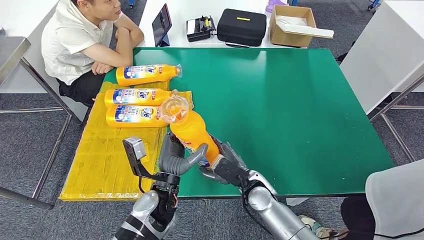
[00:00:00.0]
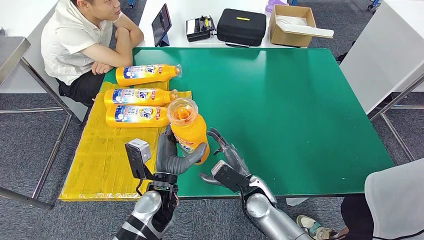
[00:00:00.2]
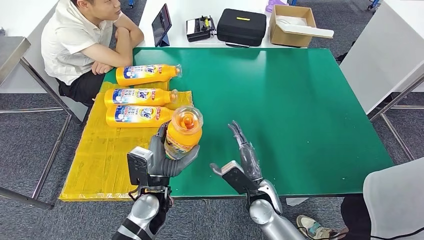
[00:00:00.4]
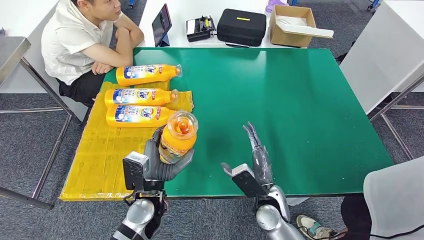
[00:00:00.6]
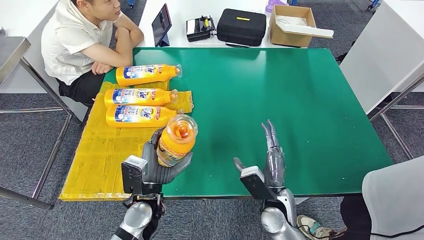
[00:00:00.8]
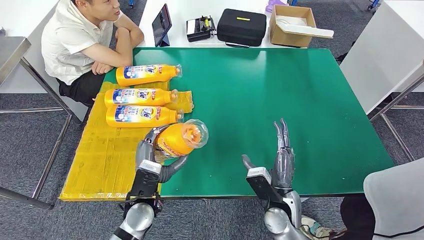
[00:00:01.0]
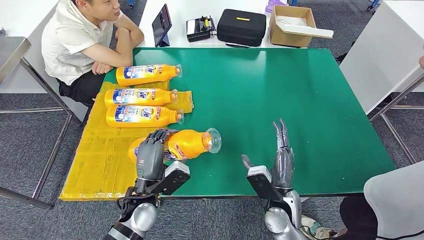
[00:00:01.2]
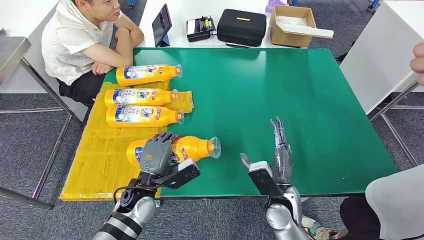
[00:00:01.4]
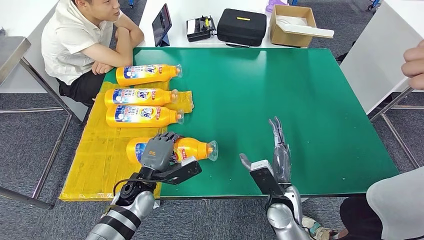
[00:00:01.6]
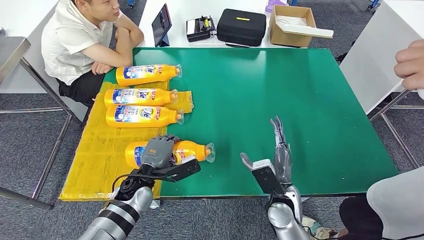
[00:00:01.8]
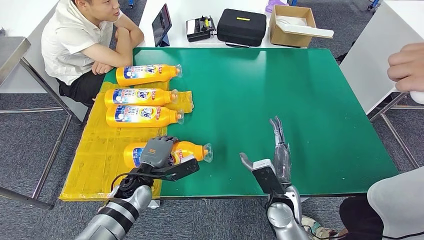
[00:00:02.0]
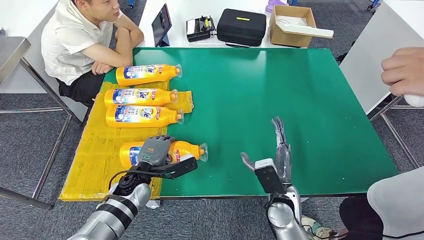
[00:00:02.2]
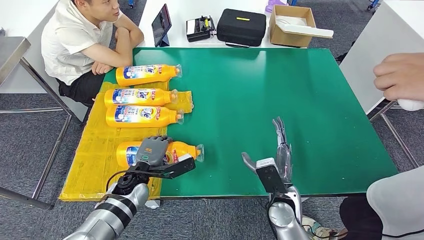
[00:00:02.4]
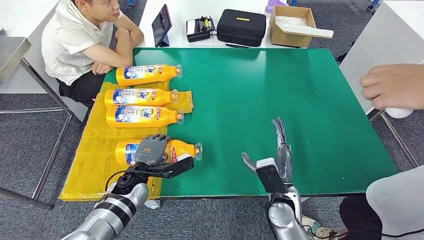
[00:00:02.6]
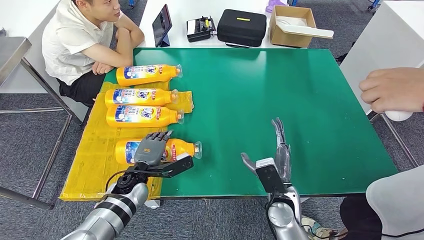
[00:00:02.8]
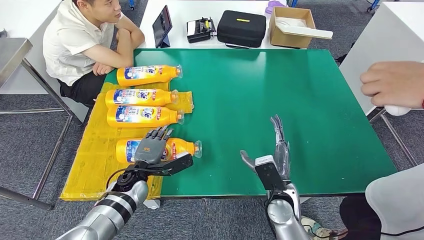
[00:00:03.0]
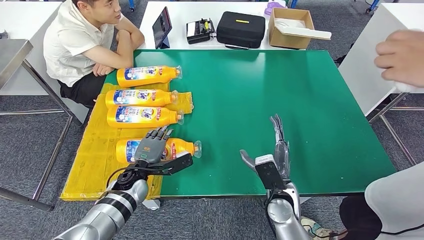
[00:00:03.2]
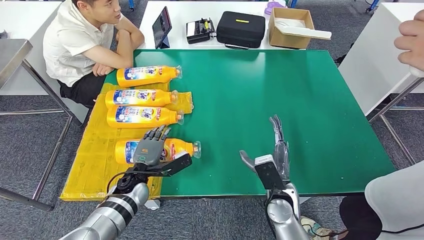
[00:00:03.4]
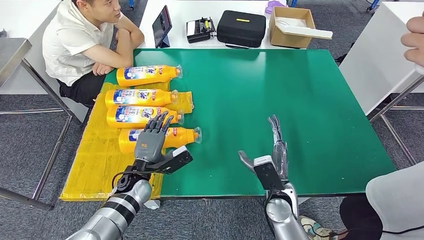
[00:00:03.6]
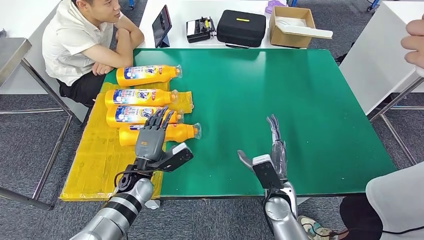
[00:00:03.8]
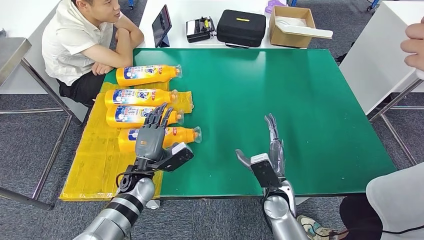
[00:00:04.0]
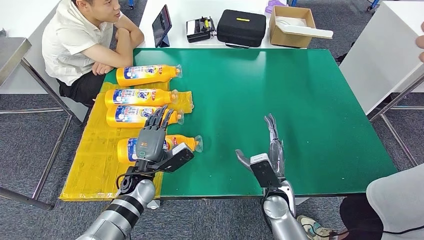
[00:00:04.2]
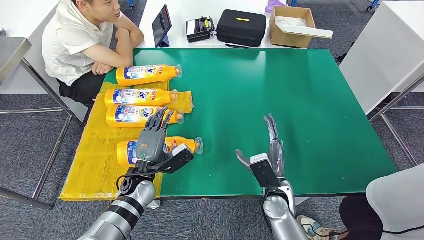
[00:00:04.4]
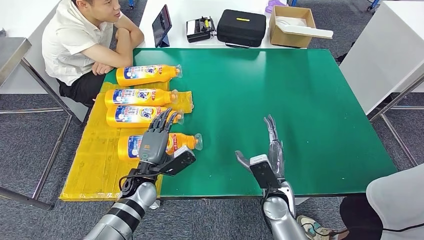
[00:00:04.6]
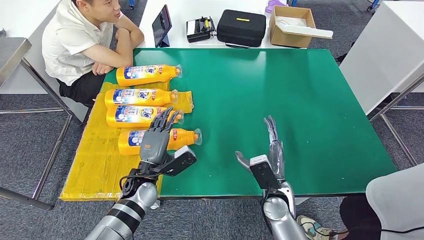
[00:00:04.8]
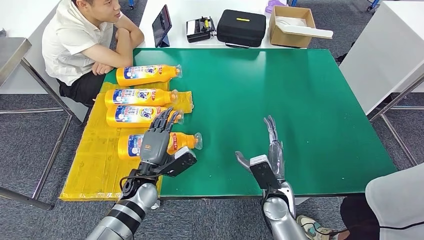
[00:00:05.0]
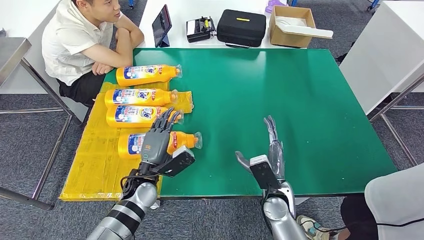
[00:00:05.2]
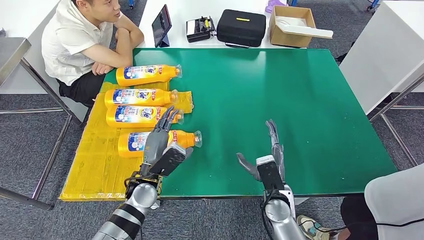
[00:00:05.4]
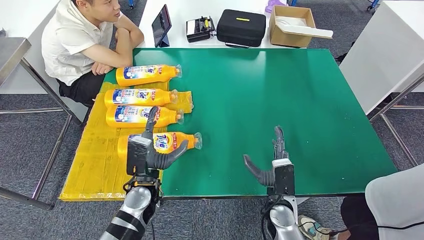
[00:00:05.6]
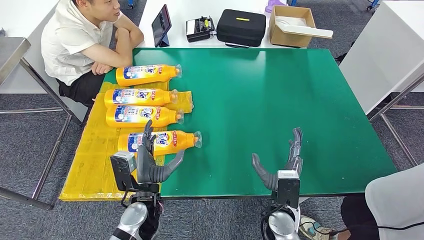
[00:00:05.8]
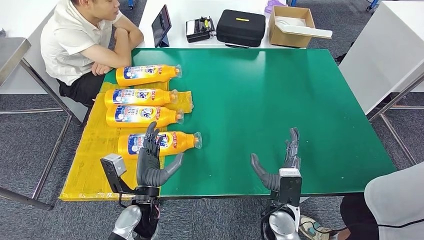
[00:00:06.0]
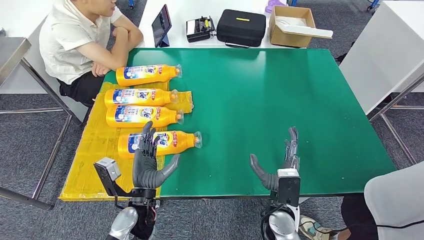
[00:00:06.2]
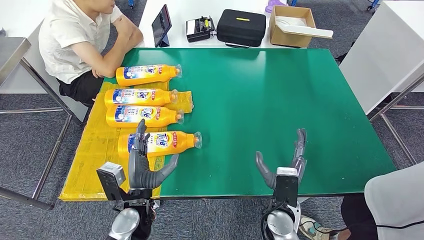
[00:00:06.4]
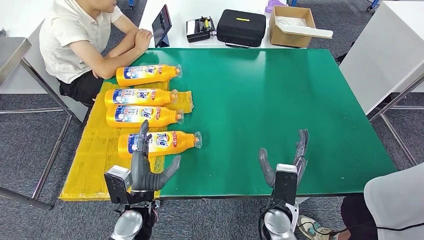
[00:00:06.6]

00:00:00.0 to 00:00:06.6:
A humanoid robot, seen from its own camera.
Step, 00:00:00.0 to 00:00:06.6: Flip the fast-moving consumer goods bottle to the front side.
00:00:00.0 to 00:00:01.6: The right hand moves some 5 cm; the left hand shifts about 5 cm to the left.
00:00:01.6 to 00:00:03.2: The left hand ends up roughly 5 cm from where it was.
00:00:03.2 to 00:00:05.0: The left hand moves about 5 cm.
00:00:05.0 to 00:00:06.6: The left hand goes about 10 cm backward.
